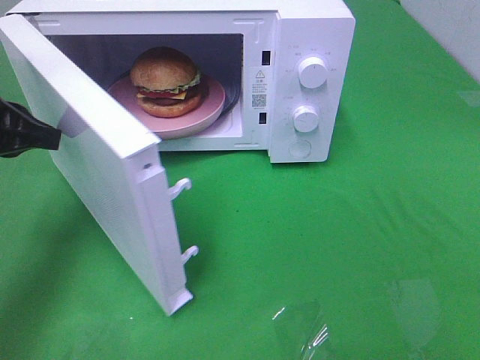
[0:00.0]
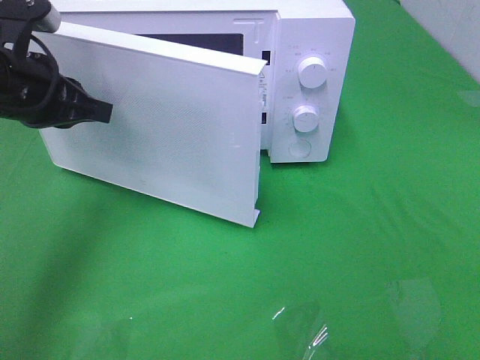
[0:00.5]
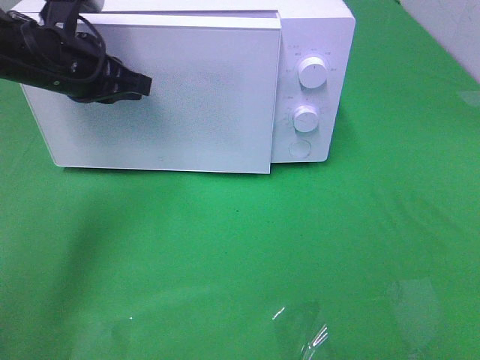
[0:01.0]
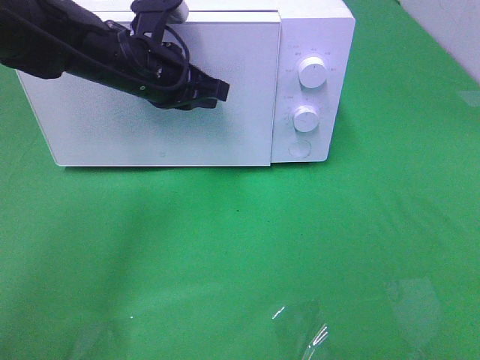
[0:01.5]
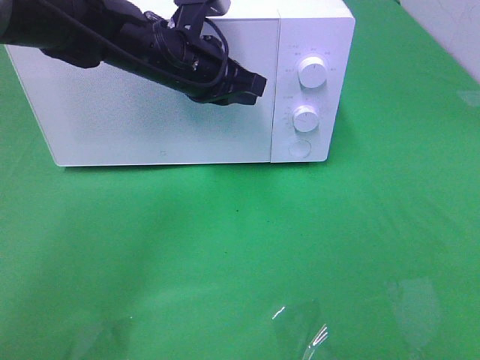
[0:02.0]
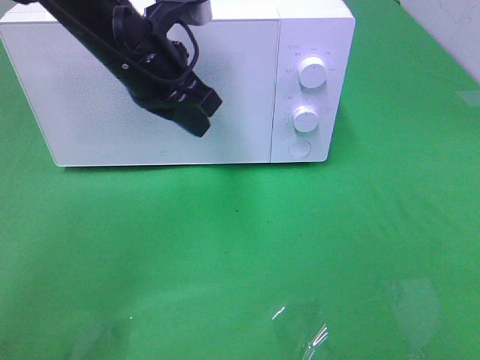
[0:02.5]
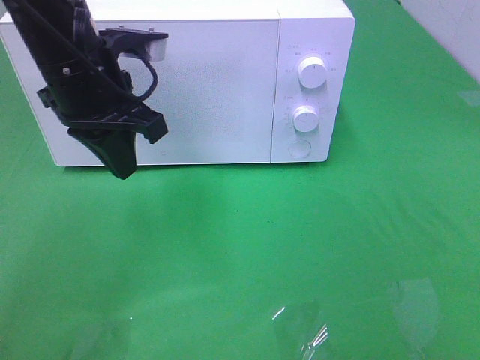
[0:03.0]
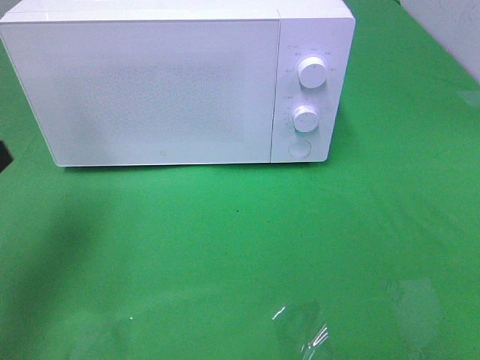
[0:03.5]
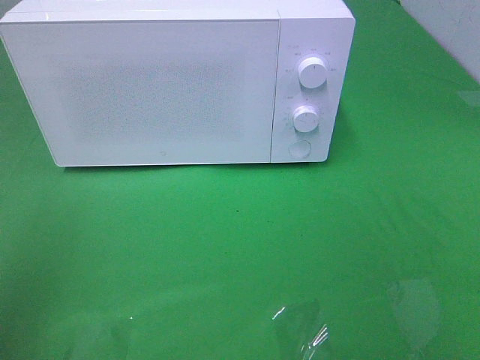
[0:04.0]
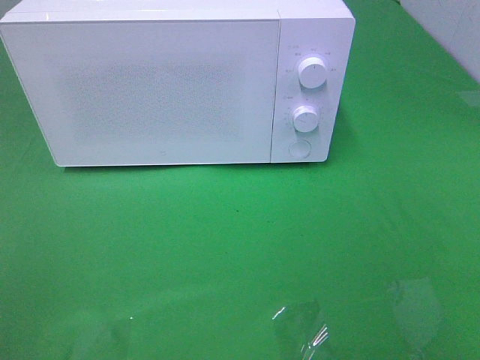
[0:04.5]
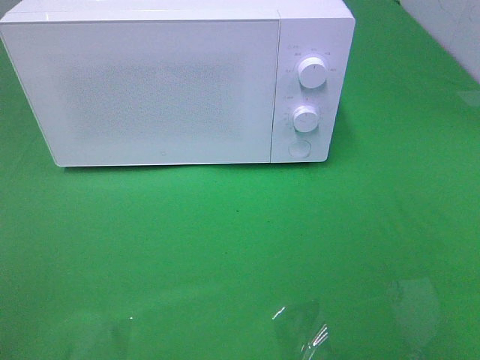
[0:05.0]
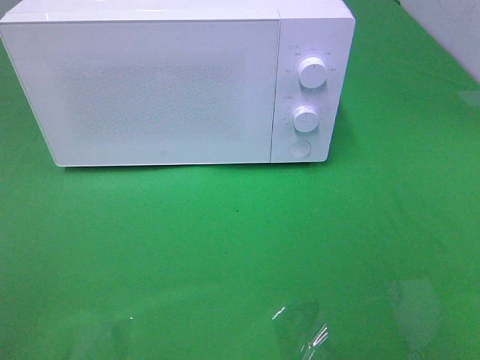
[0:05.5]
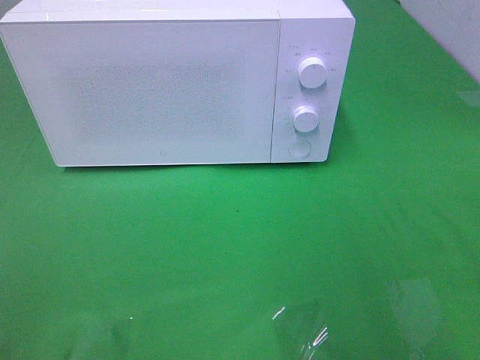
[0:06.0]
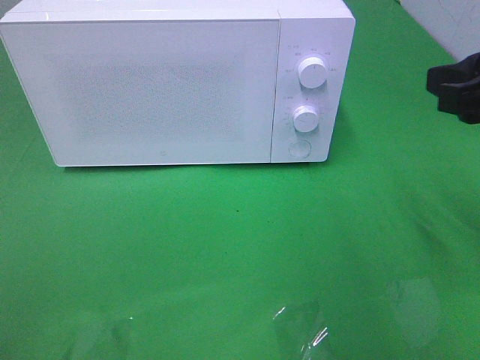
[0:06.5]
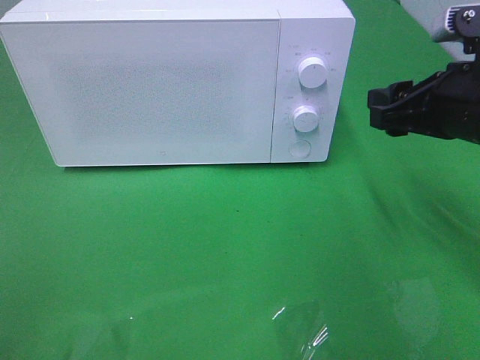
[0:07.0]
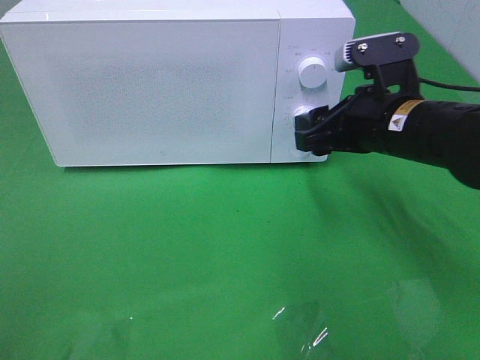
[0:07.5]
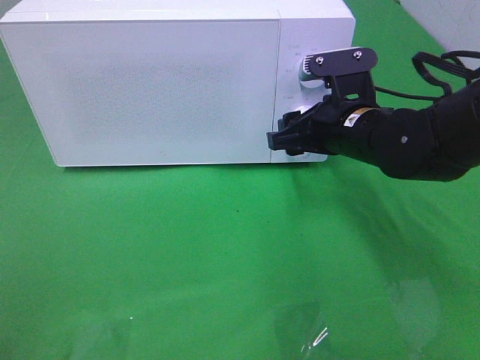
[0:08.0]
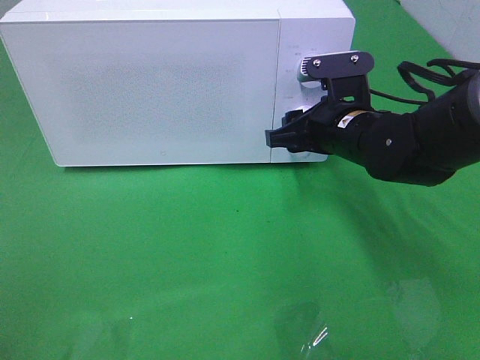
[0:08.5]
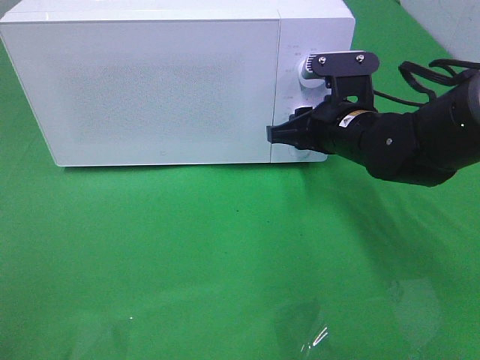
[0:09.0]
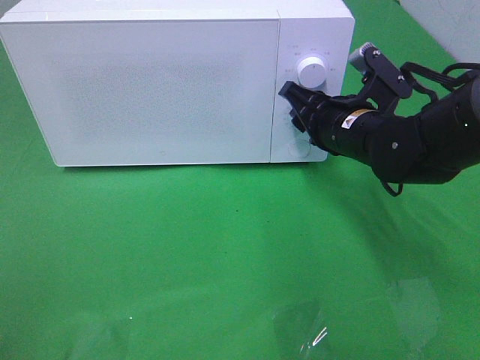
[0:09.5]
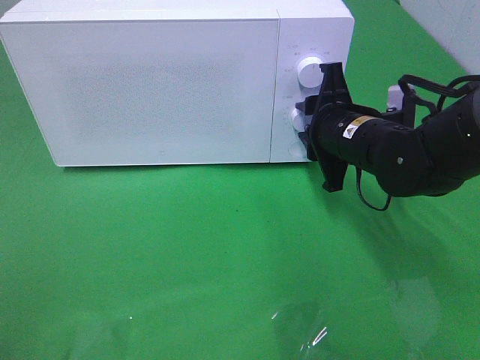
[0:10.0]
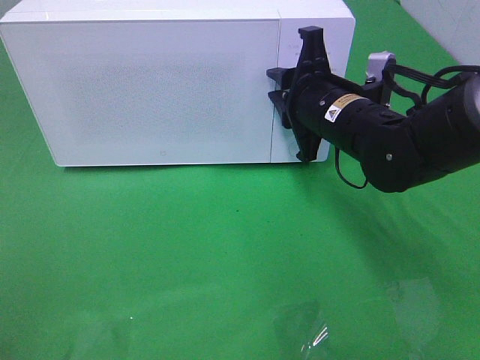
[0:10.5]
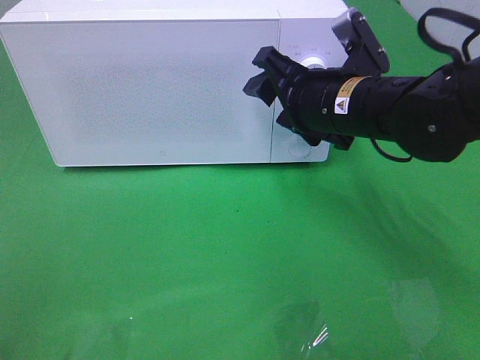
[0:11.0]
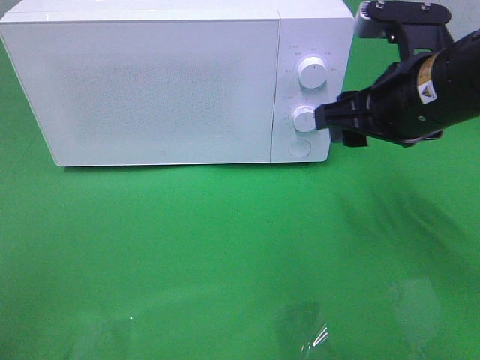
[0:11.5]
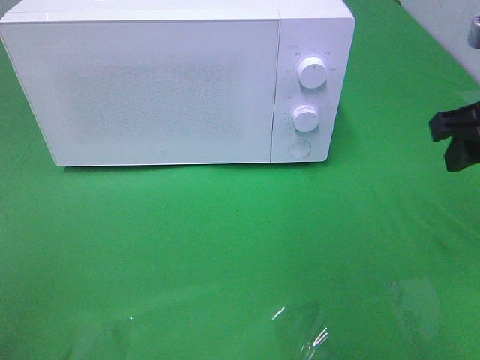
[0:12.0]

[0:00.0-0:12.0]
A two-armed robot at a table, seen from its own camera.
Task of the whole recording: Heat the burger.
Step, 0:00.0 to 0:02.0: Left hand: close the microwave door.
Step, 0:02.5 to 0:10.5: Right hand: twist timer button.
0:00.0 to 0:02.0: The left gripper goes some 20 cm to the right and forward, and closes up.
0:02.0 to 0:04.0: The left gripper moves backward and to the left, some 35 cm.
0:06.0 to 0:08.0: The right gripper goes about 30 cm forward, downward and to the left.
0:08.0 to 0:10.0: The right gripper closes its fingers.
0:10.0 to 0:12.0: The right gripper goes some 20 cm to the right, upward and backward.

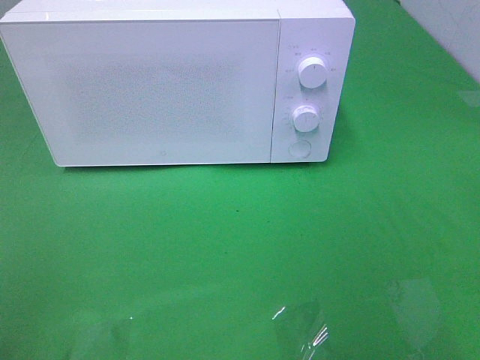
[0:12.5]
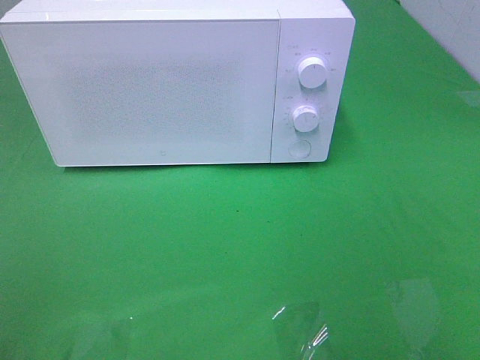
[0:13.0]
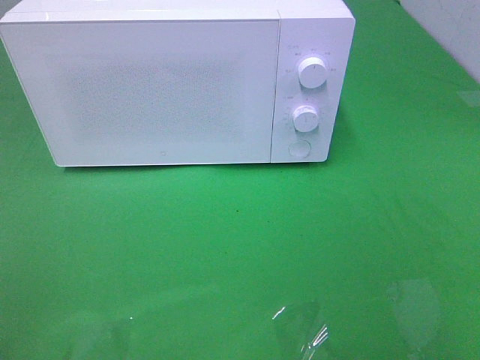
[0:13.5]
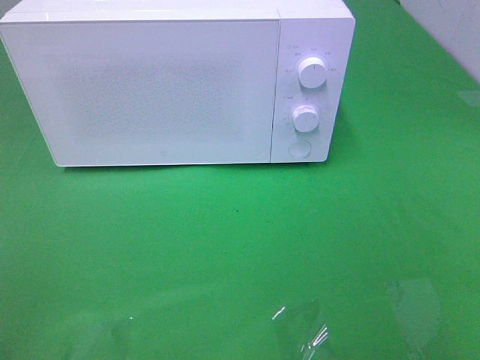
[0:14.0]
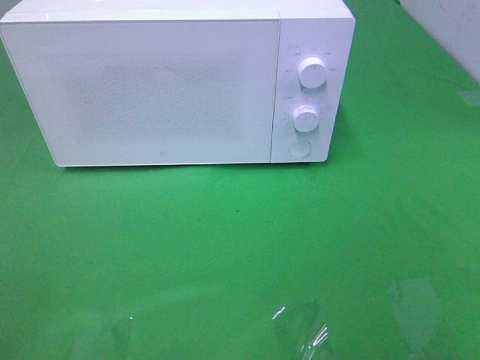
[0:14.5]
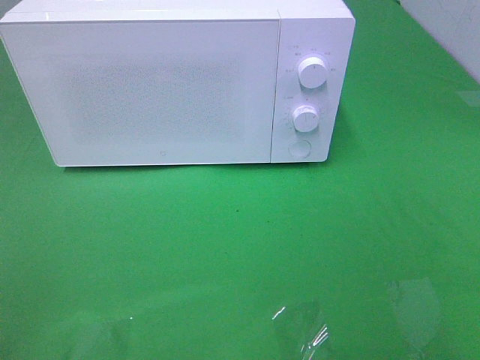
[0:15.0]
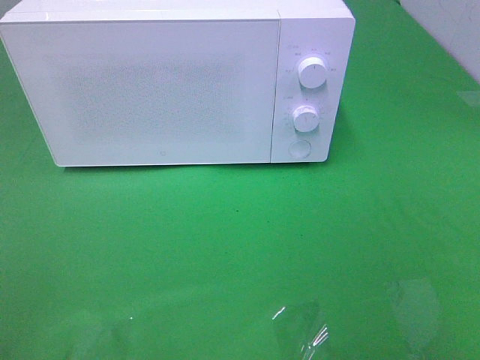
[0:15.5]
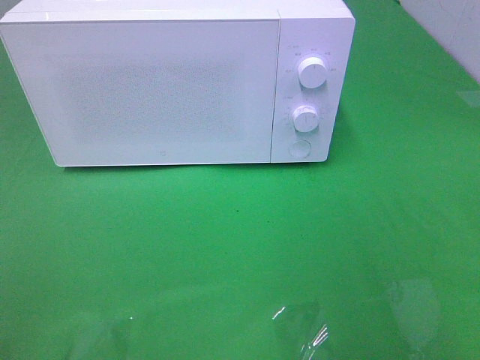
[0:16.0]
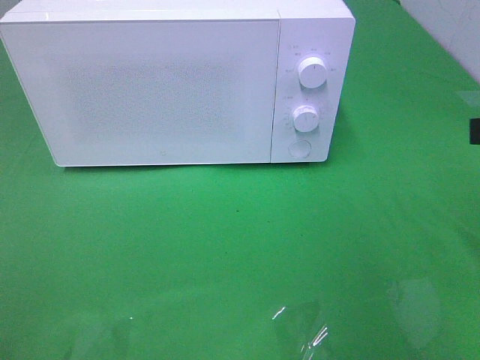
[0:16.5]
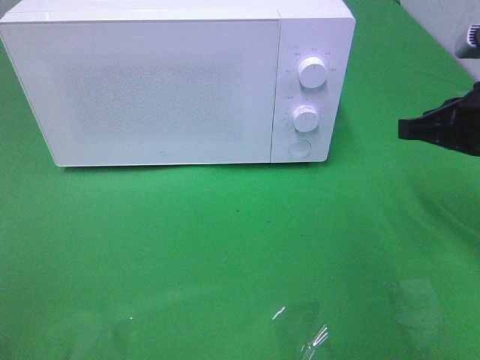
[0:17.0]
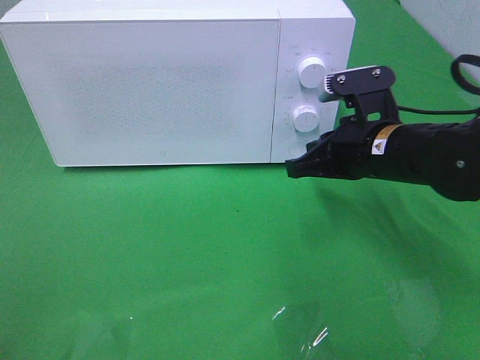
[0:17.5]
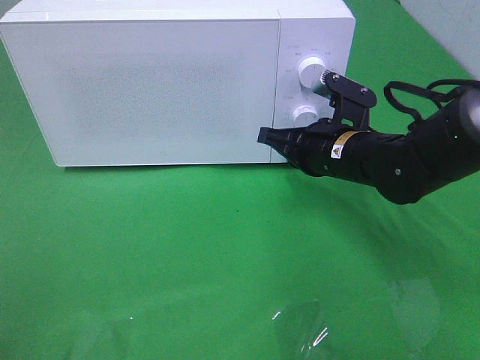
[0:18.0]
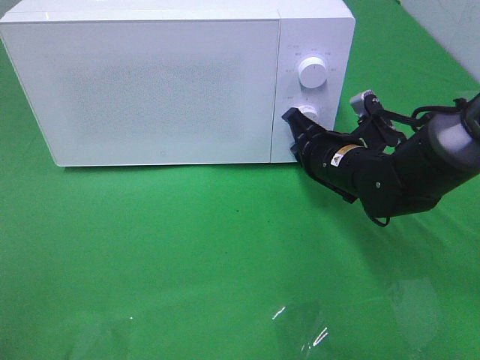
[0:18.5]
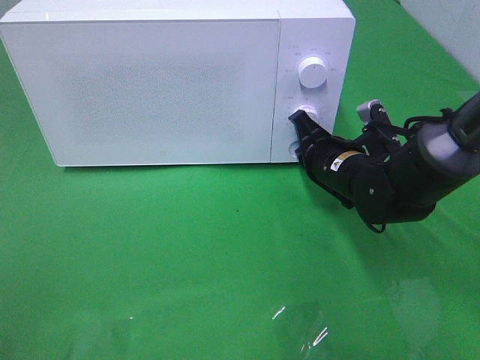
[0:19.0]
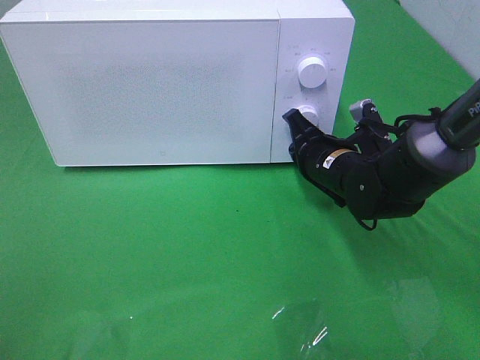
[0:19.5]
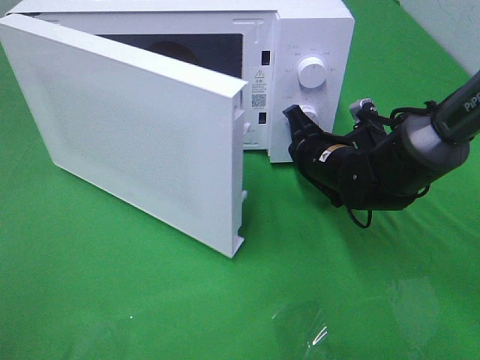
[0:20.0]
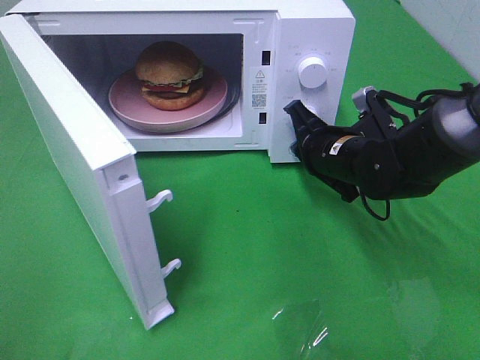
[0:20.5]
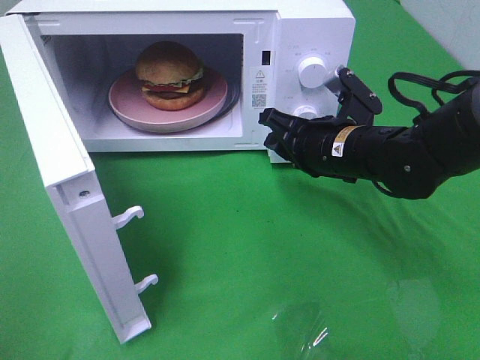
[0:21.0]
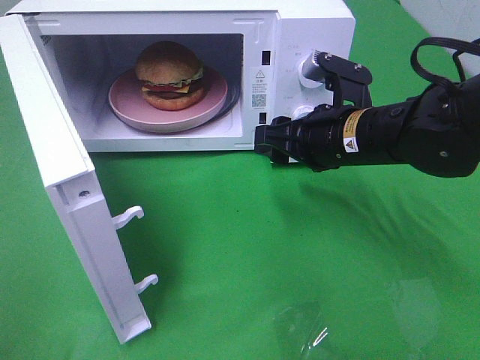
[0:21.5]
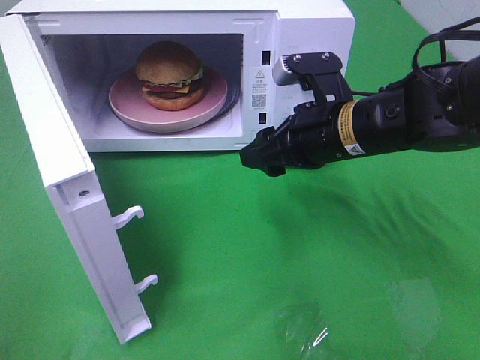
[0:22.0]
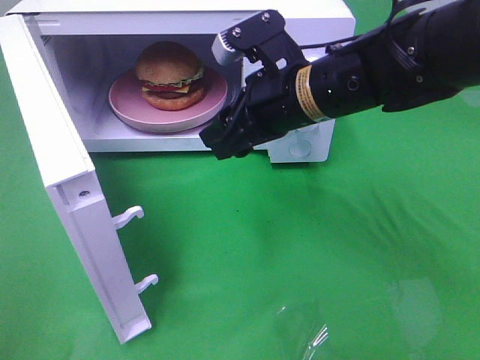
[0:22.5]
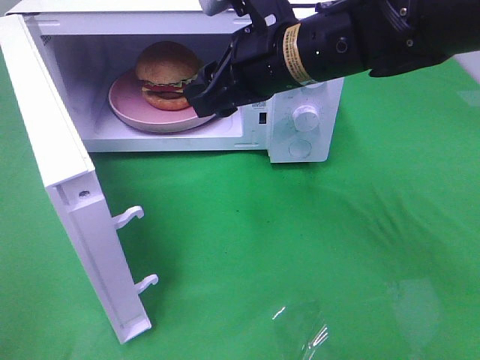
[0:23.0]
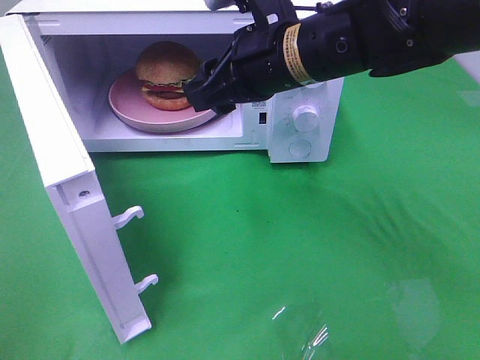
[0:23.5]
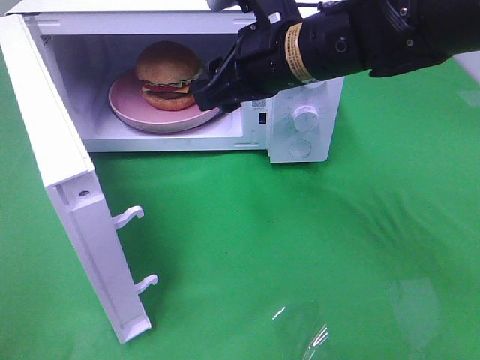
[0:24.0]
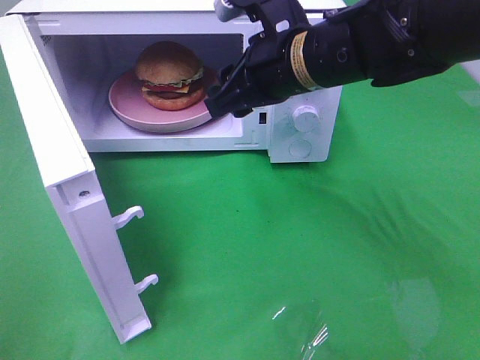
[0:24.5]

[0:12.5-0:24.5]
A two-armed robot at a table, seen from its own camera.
Task of the whole recording: Heat the burger.
Step, 0:12.5 to 0:20.5: Right hand: press the switch.
0:16.5 to 0:18.5: The right gripper travels downward, forward and to the left by approximately 25 cm.
0:20.5 to 0:22.5: The right gripper goes roughly 15 cm upward and to the left, and opens up.
0:22.5 to 0:24.5: There are only small adjustments of the grippers.

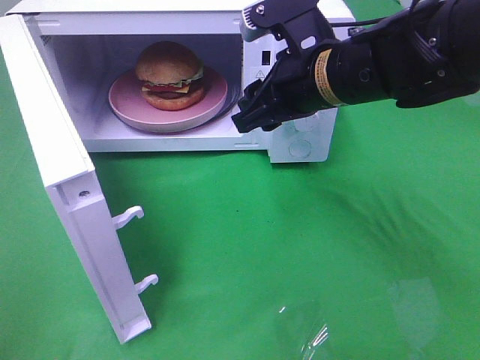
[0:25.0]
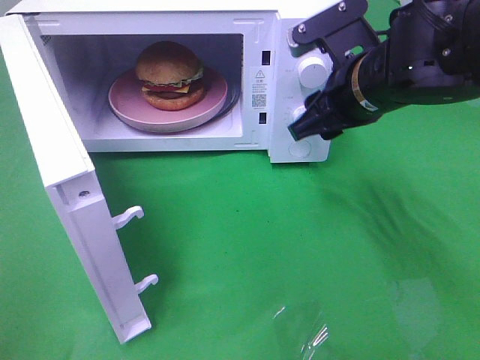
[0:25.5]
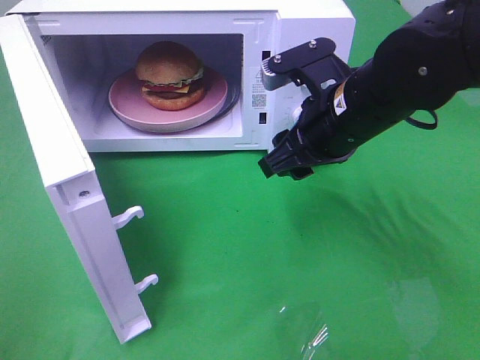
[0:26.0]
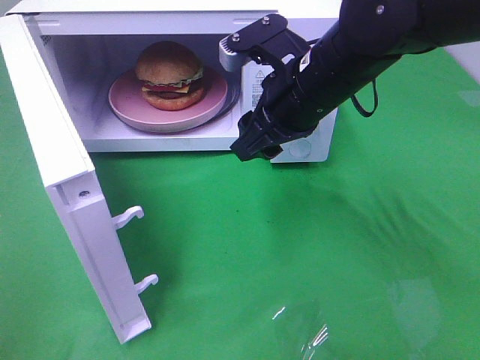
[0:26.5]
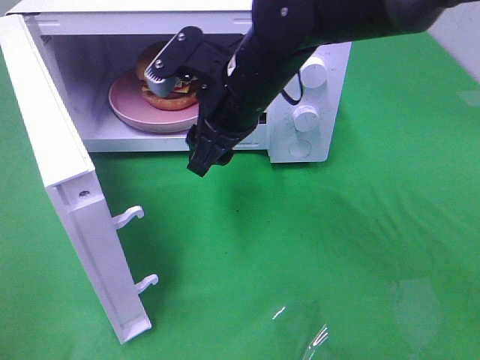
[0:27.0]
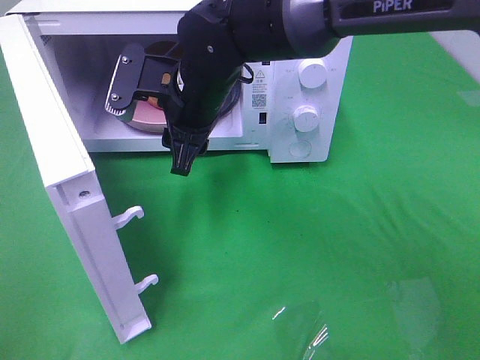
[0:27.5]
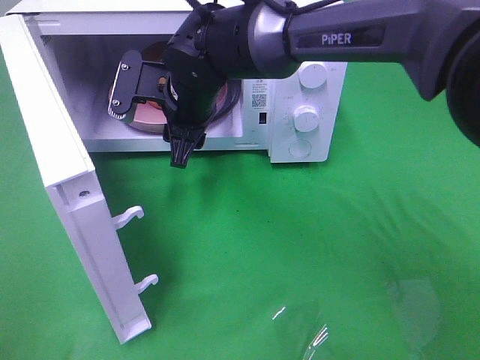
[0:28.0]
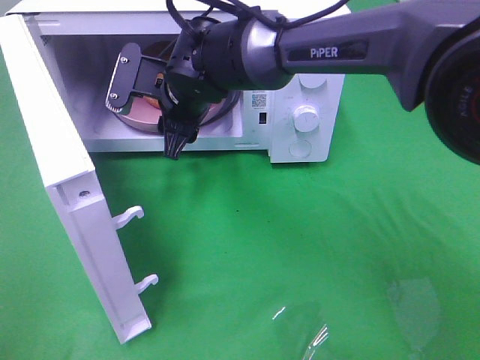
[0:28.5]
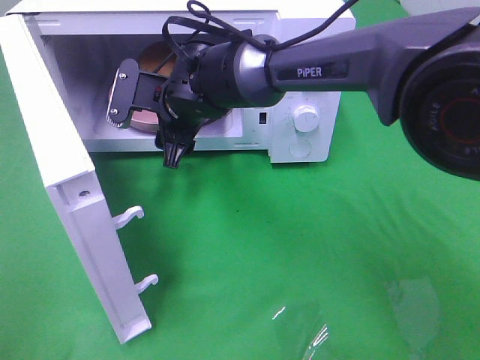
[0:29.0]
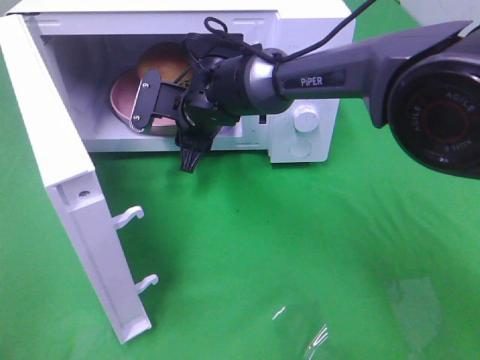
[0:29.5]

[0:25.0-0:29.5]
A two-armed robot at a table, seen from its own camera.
Task of the whole recording: Heat the burger.
0:25.0 to 0:27.0: The right gripper moves to the left, about 10 cm.
0:27.0 to 0:29.5: The right gripper is displaced downward, forward and to the left by some 15 cm.
